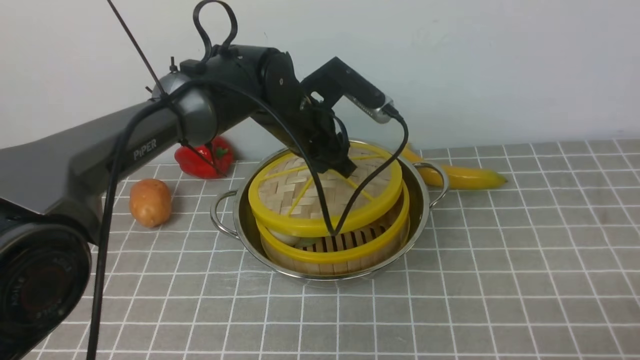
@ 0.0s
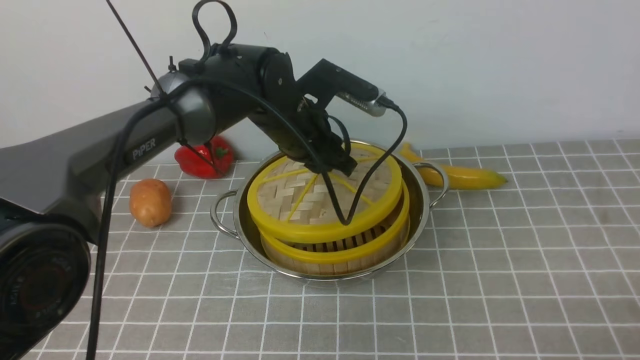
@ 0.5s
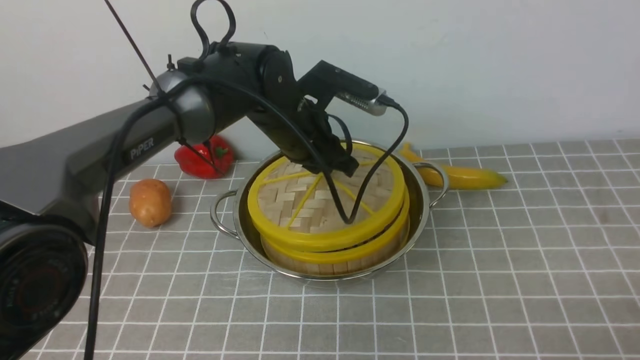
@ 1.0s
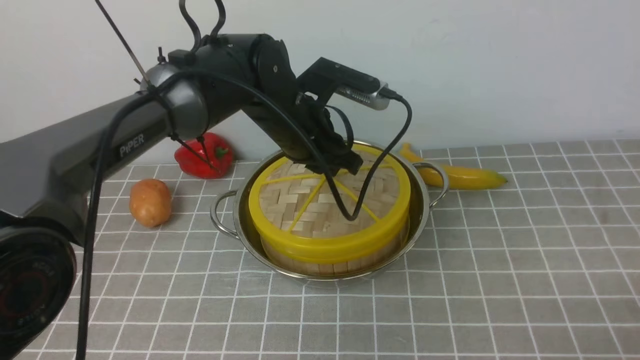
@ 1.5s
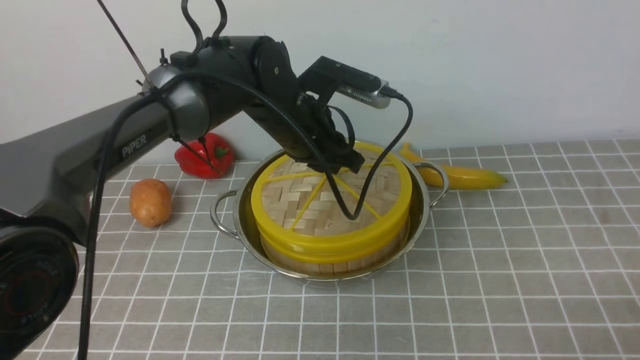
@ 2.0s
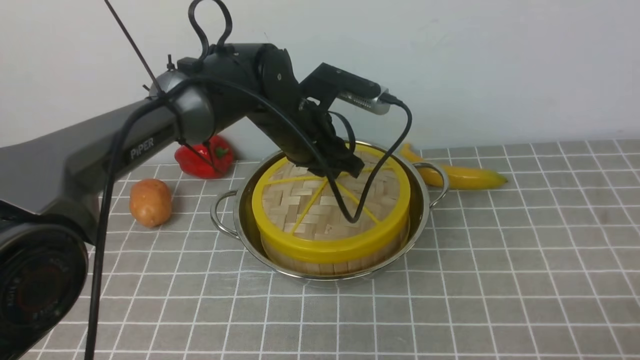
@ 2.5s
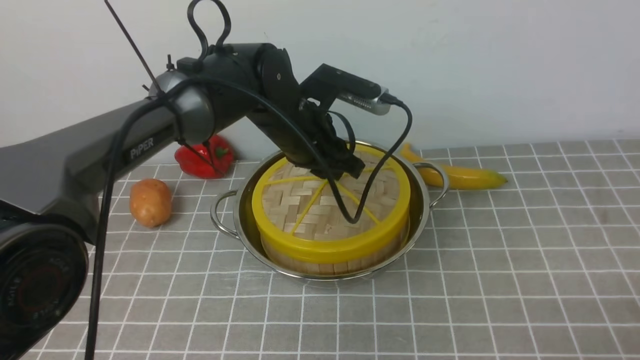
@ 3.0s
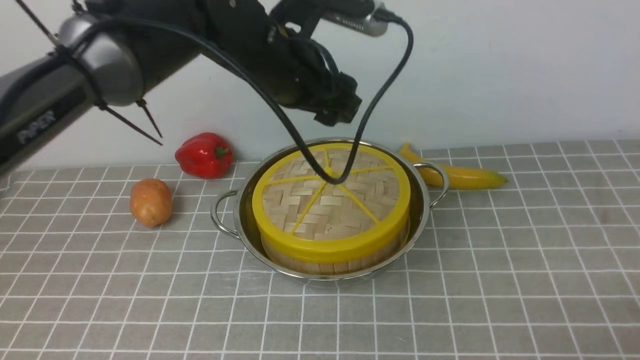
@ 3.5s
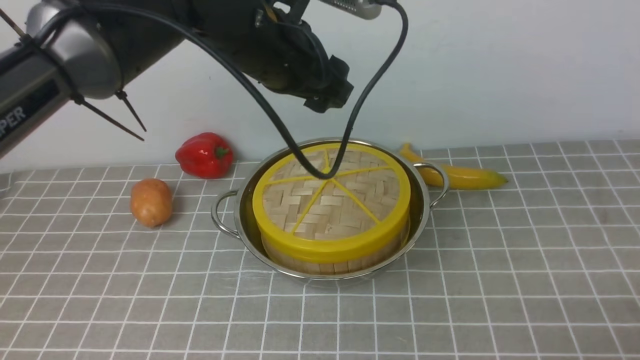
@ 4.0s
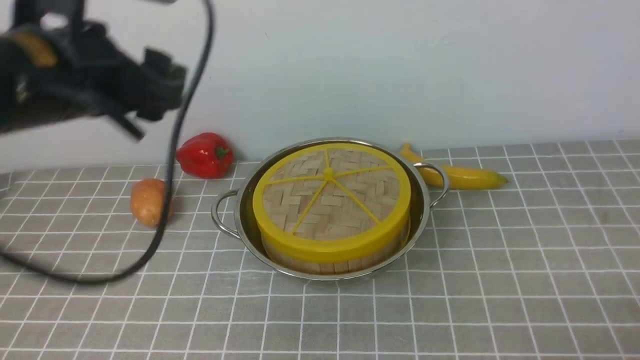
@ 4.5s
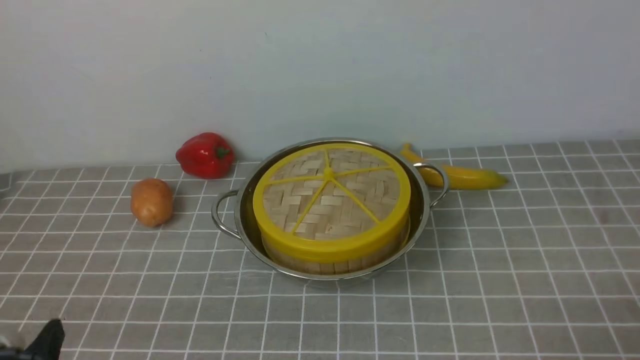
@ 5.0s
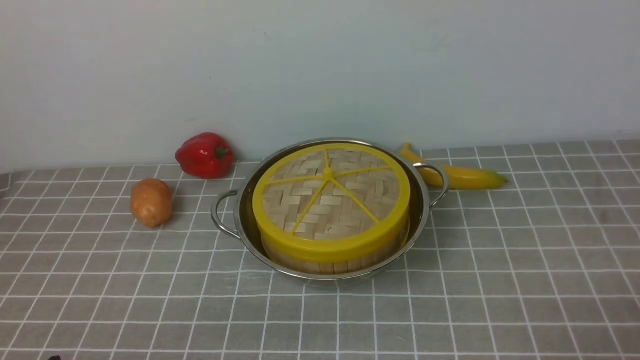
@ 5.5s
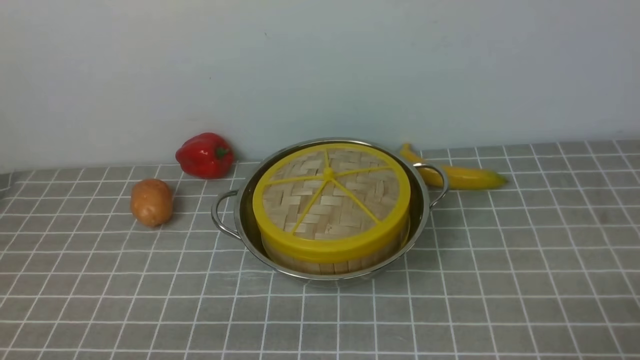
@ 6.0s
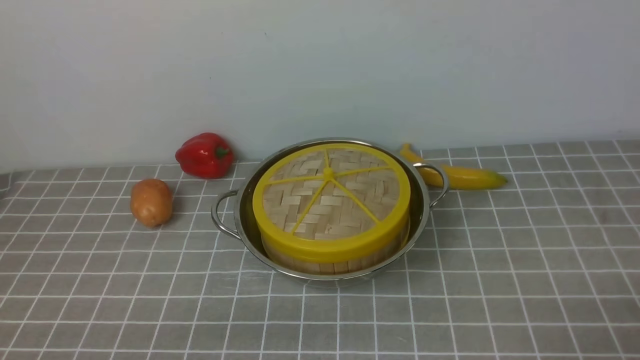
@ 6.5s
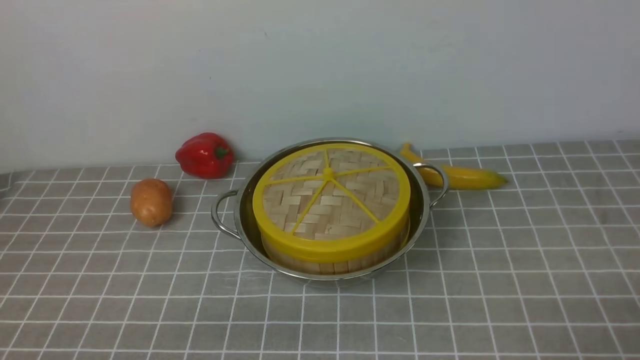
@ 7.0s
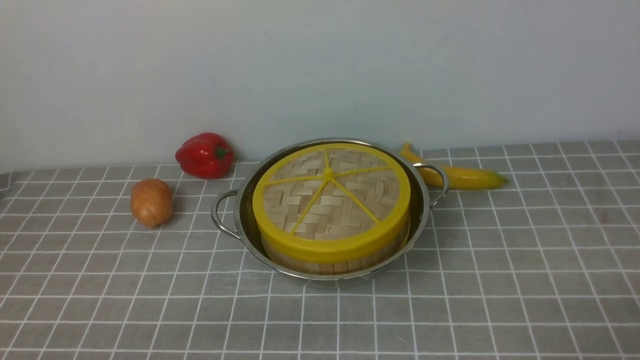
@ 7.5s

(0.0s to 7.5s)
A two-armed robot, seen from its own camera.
Task of the whole recording: place the steamer in the pot on the grey tablecloth, and put the lid on the steamer.
Step, 0.0s - 3.0s: use the left arm to place the steamer lid on the steamer.
0.0s - 2.0s: The left gripper closes.
2.0s - 4.0s: The left gripper moves upward, approximately 10 cm, and opens.
4.0s - 5.5s: The left gripper goes some 40 cm backward, to the left and downward.
5.5s - 7.5s: Both grippers stay about where they are.
